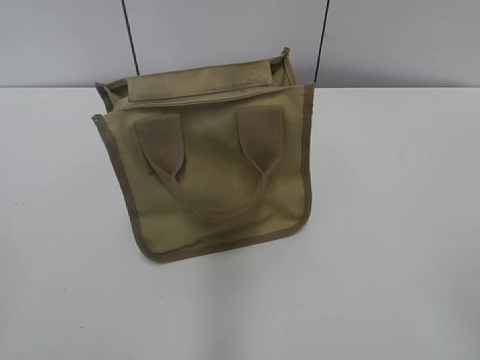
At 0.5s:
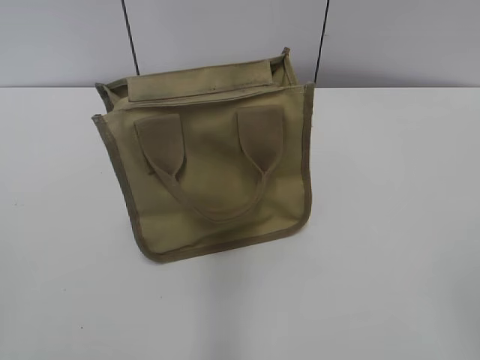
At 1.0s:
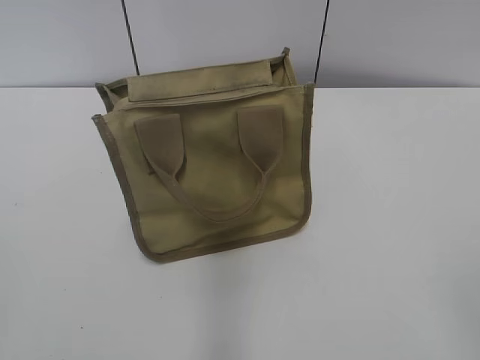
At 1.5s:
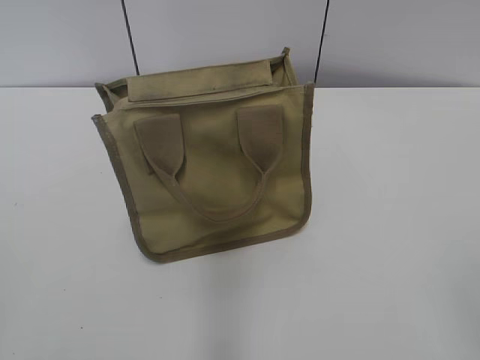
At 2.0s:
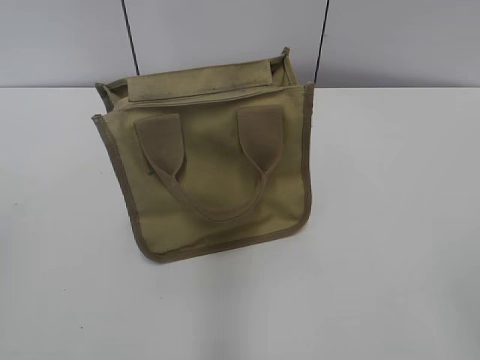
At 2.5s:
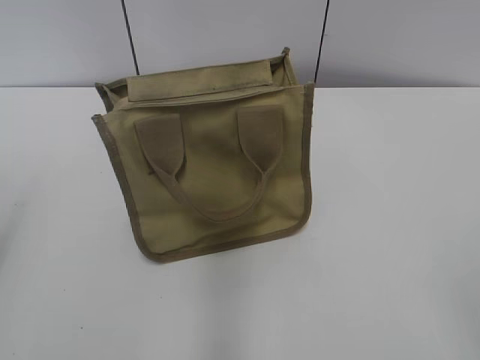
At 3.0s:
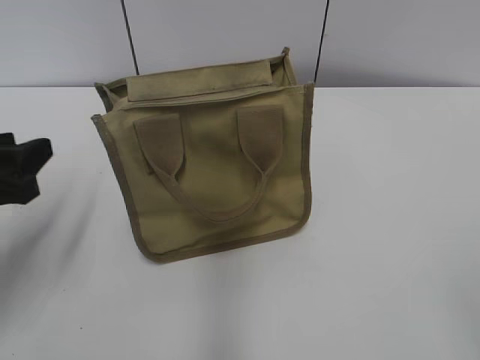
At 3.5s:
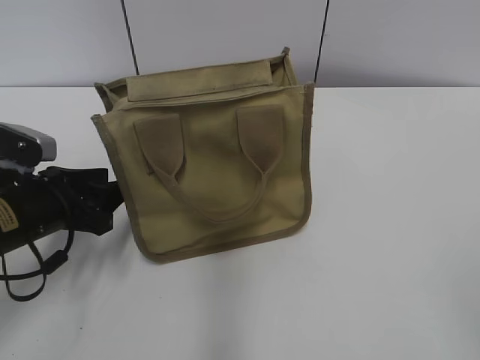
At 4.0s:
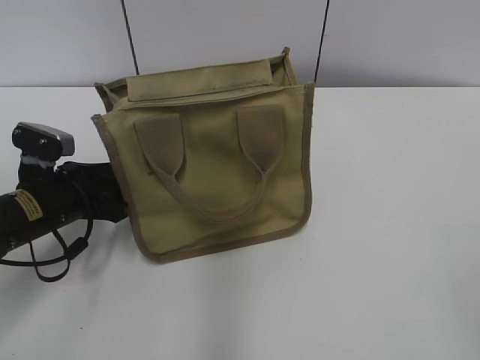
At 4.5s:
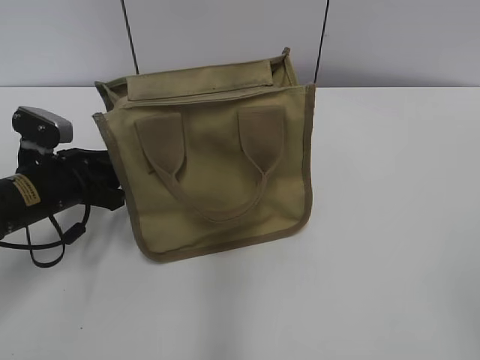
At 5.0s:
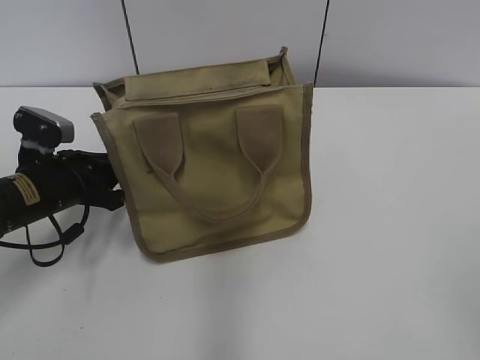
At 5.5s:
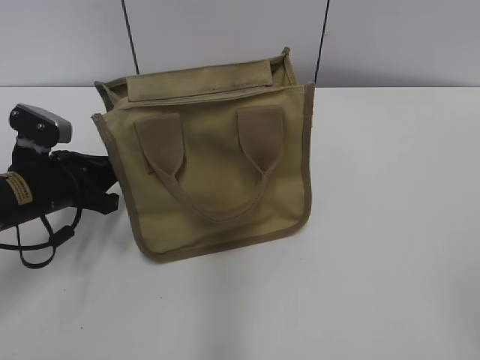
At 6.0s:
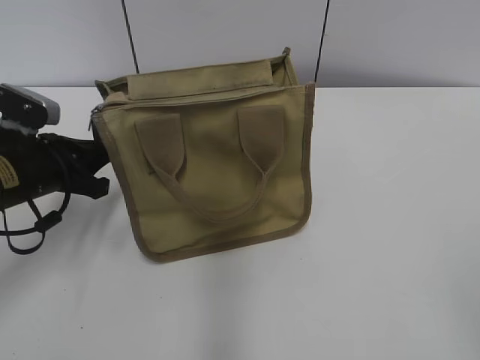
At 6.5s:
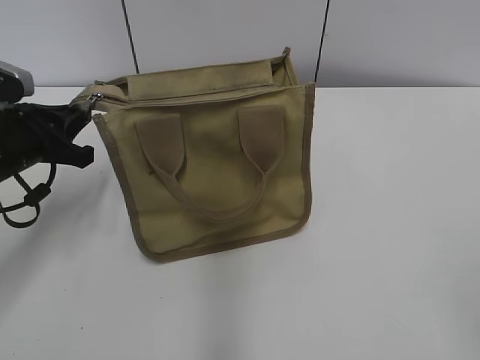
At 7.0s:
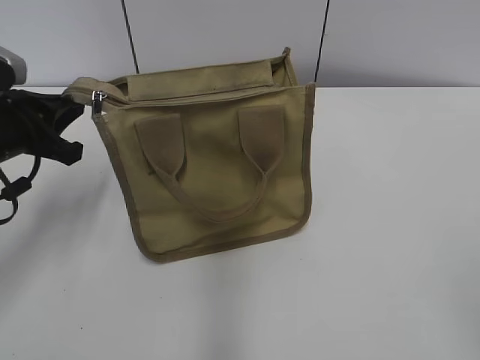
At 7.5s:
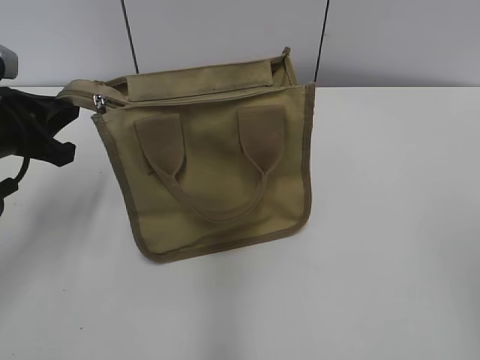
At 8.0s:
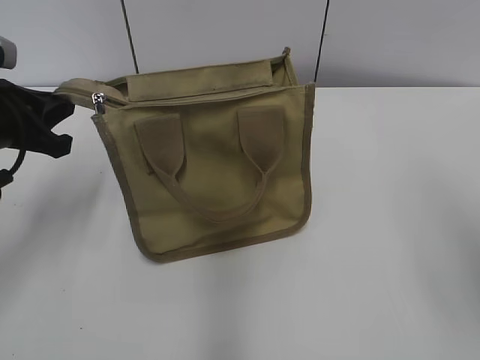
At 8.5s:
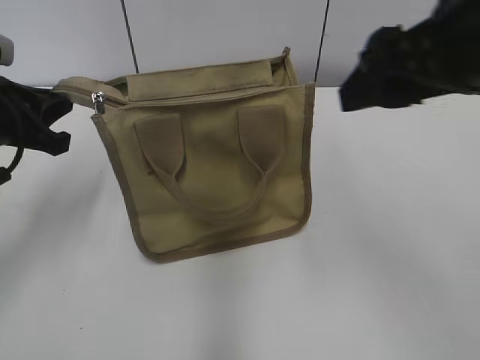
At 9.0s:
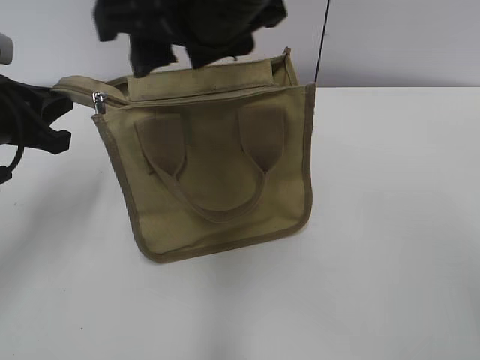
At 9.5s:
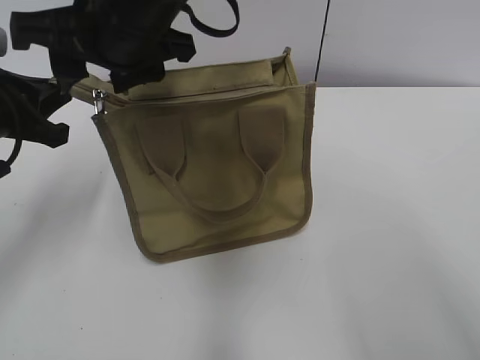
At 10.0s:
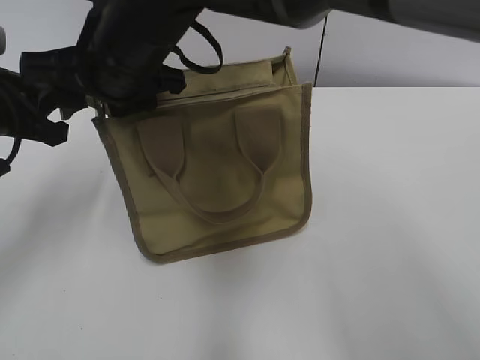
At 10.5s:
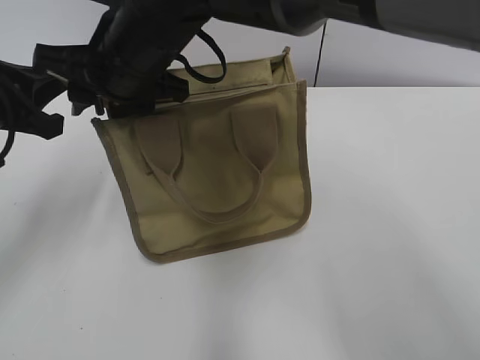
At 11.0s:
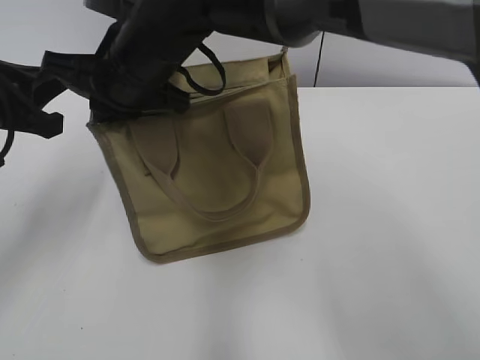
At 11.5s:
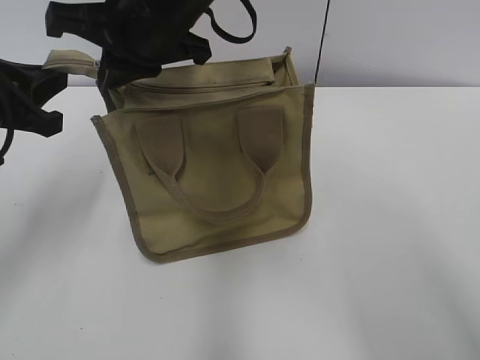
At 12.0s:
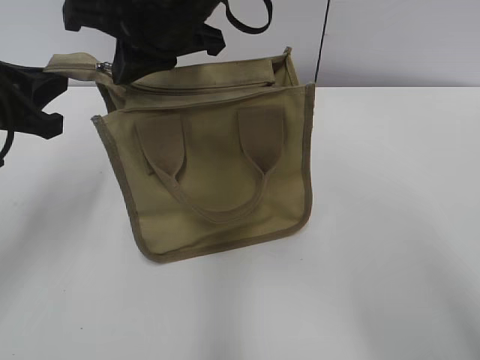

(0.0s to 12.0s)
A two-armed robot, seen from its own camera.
2.0s - 4.0s: The left gripper moves forward and downward, approximately 35 cm.
4.0s - 6.0s: The left gripper closes.
6.0s - 8.0s: The left gripper moves upward, roughly 10 cm.
8.0s - 10.0s: The right gripper is displaced to the left and forward by some 40 cm.
10.0s - 12.0s: The right gripper shifts by some 5 cm, and closes up.

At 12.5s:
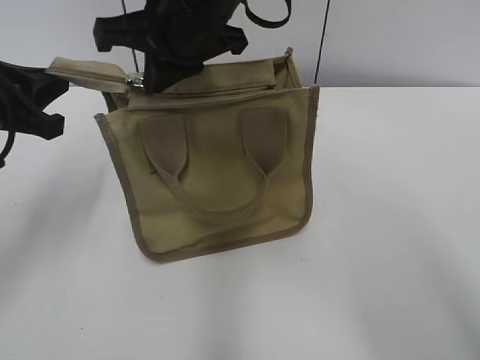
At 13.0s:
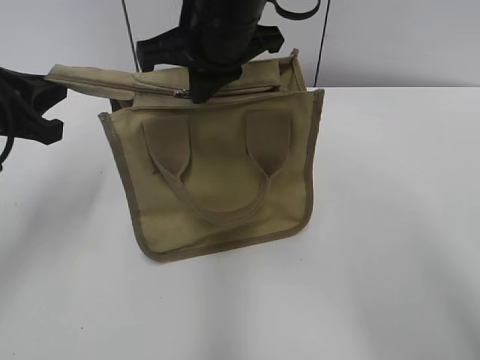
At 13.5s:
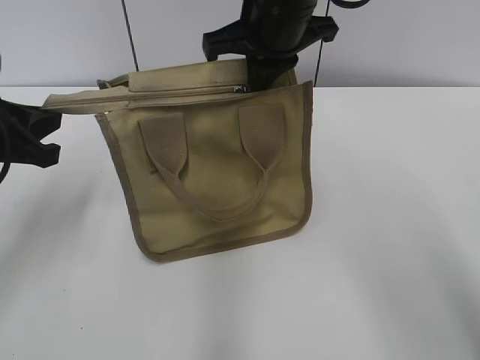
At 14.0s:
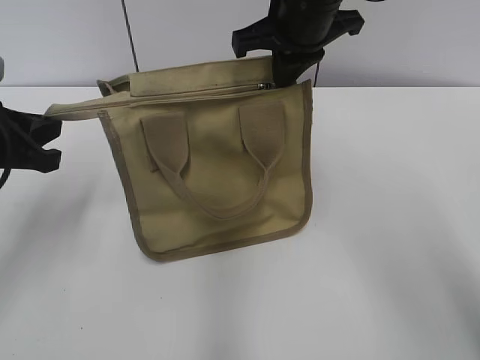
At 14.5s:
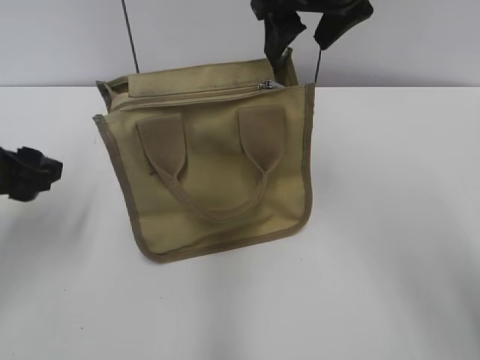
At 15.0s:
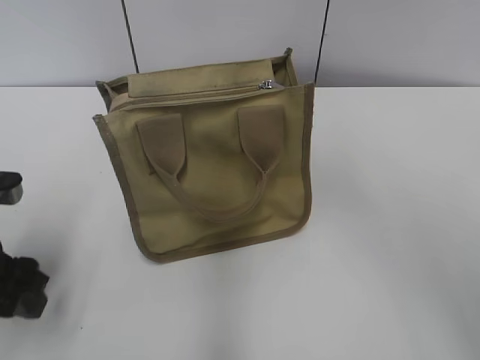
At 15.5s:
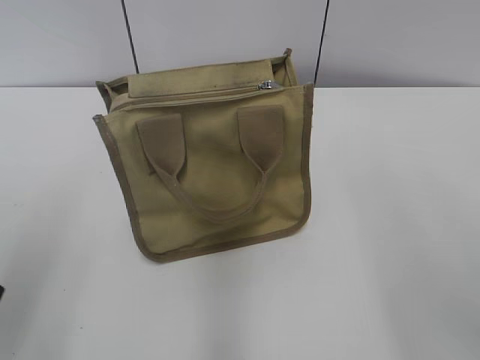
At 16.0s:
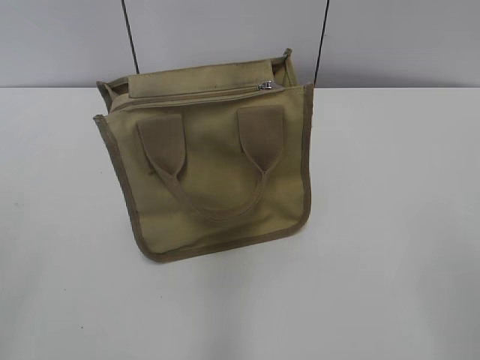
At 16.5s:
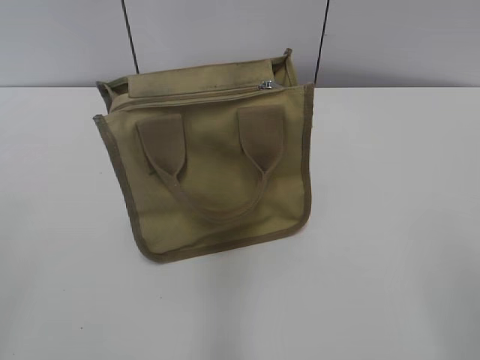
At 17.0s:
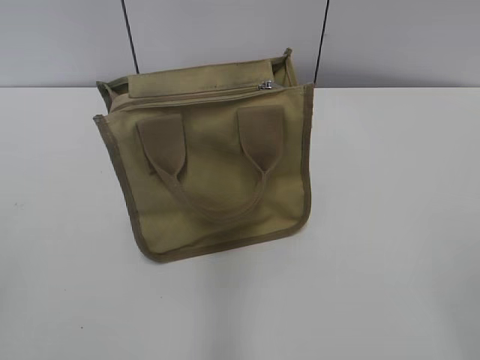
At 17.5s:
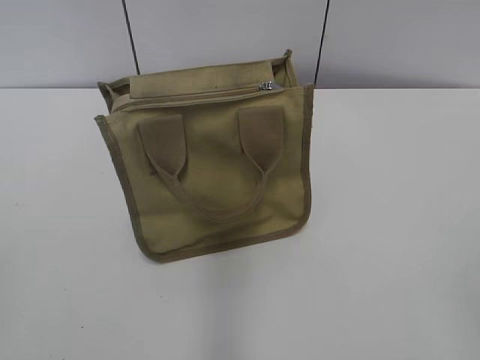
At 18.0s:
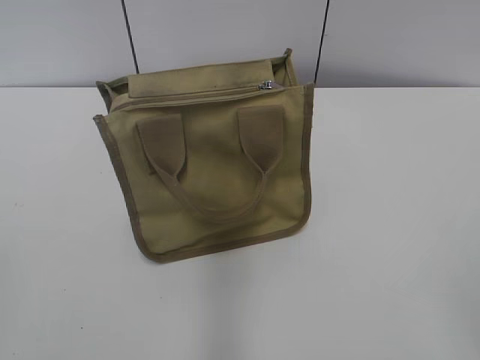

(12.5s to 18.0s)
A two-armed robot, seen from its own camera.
12.5s - 14.5s: The left gripper opens up. Meanwhile the right gripper moves to the right, roughly 10 cm, and opens.
14.5s - 16.0s: The left gripper shifts roughly 25 cm backward and upward. Meanwhile the right gripper shifts roughly 40 cm backward and to the right.

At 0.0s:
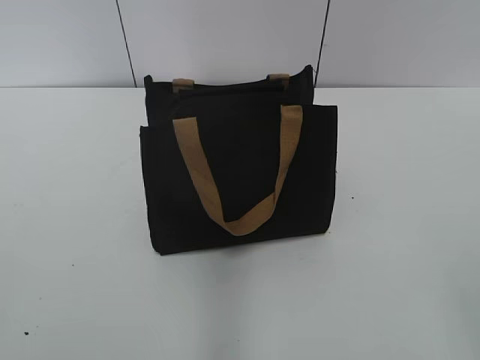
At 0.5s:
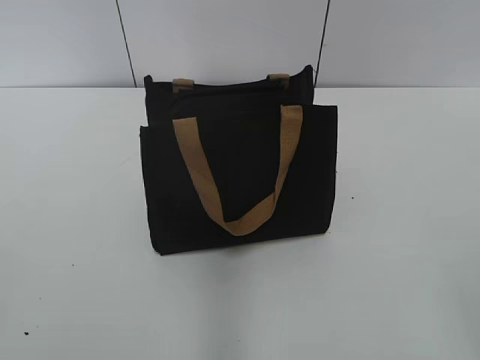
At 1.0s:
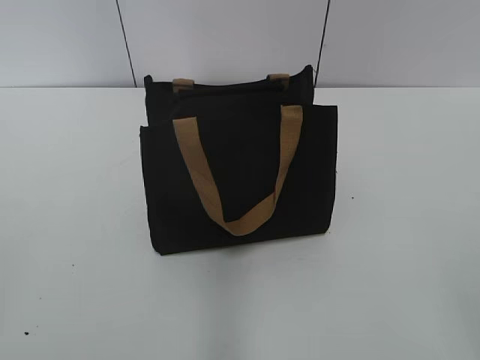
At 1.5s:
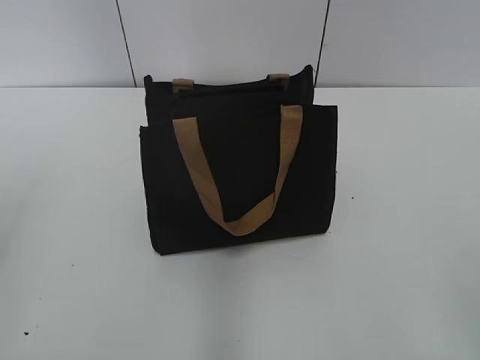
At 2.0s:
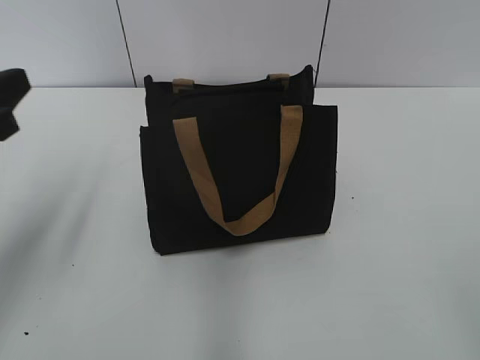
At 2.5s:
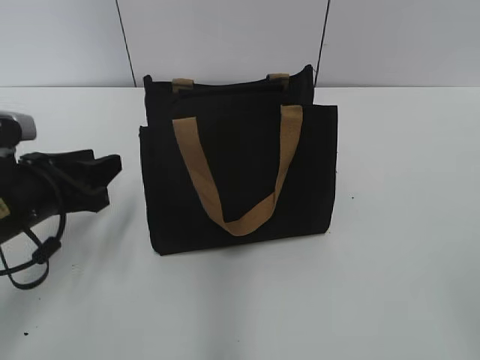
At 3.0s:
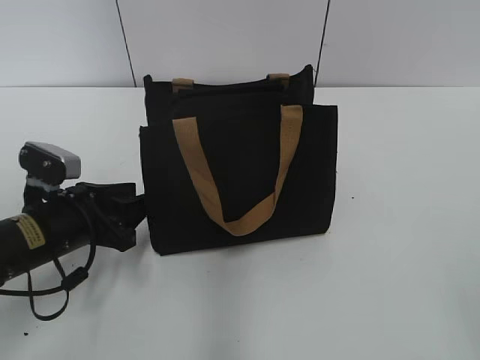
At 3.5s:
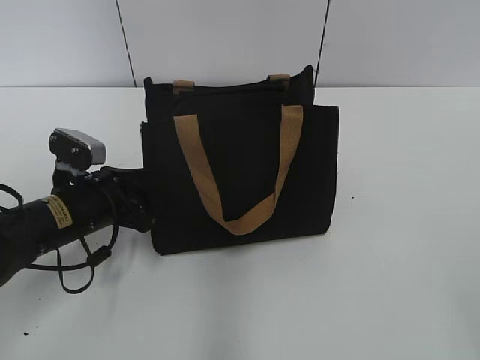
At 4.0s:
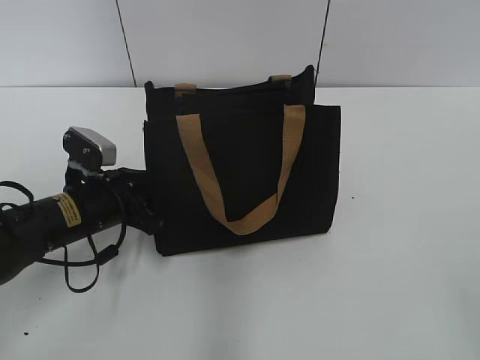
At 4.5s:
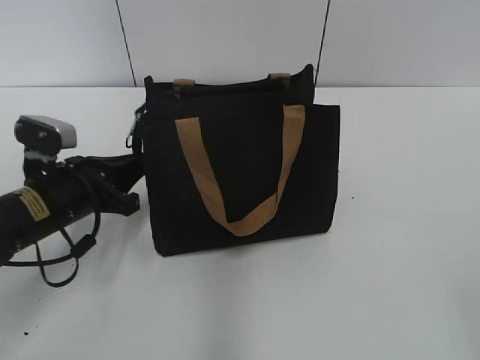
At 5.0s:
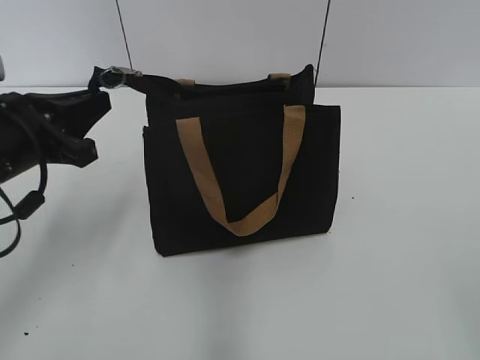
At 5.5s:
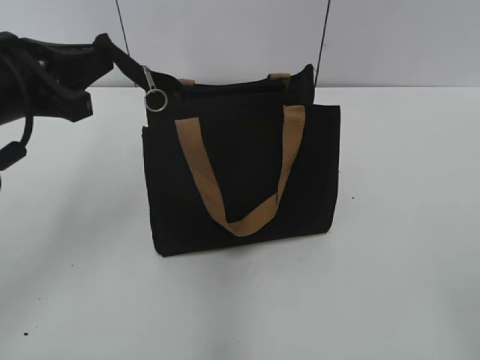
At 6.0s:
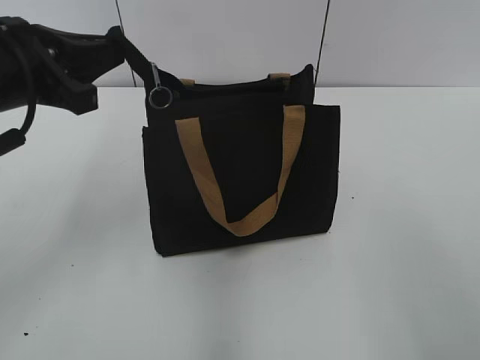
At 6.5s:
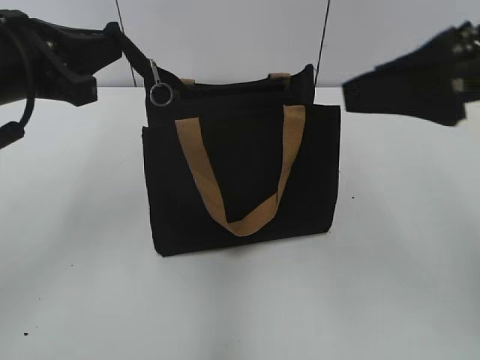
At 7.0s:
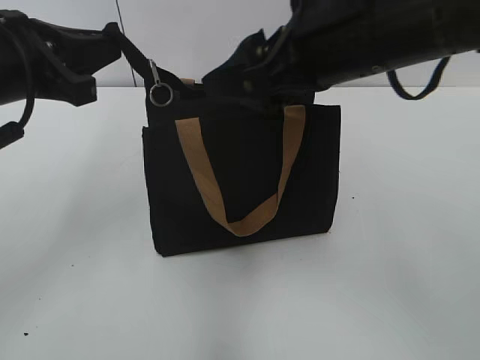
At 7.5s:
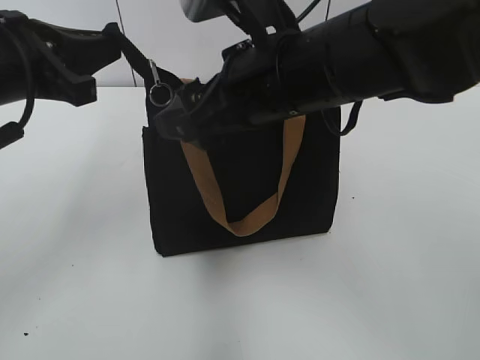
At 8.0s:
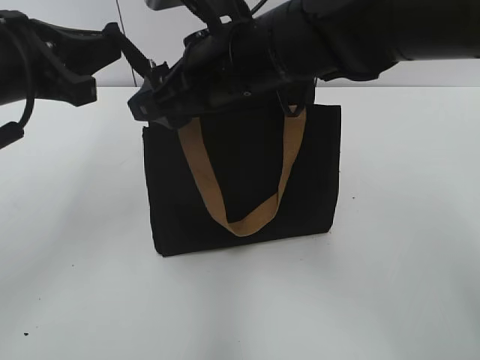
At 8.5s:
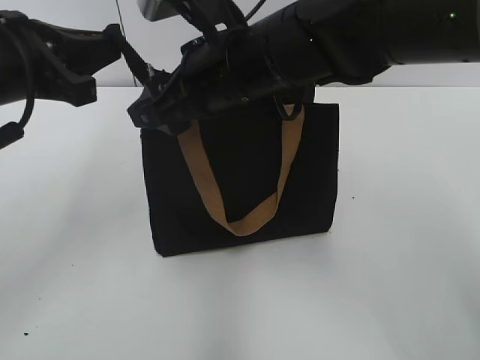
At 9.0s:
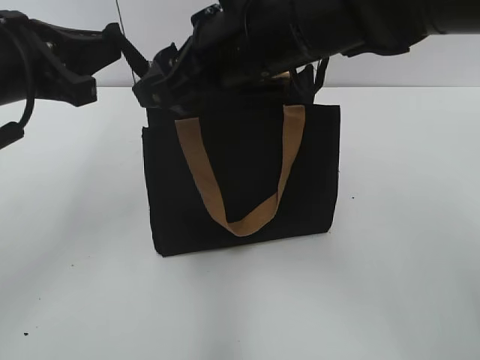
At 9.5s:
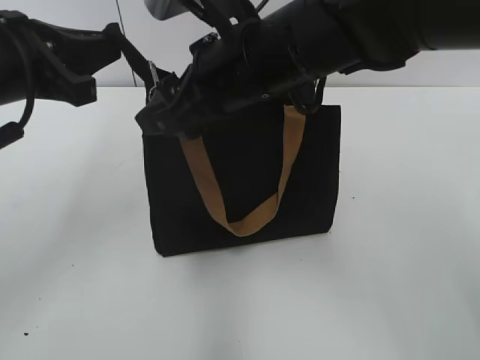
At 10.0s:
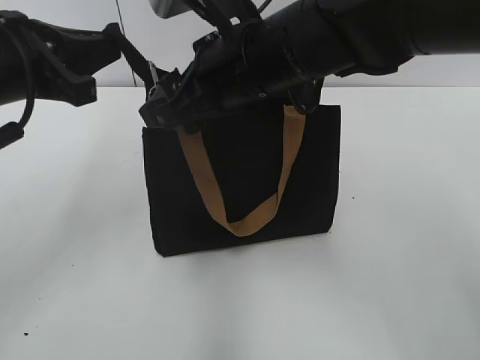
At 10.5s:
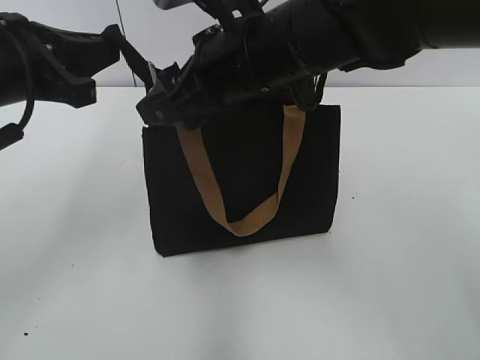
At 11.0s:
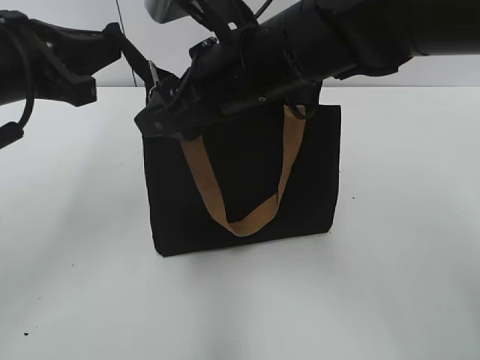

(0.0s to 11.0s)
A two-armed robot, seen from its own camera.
2.0s - 3.5s: The left gripper shifts about 20 cm downward, forward and to the right.
3.5s - 5.5s: The left gripper travels upward by about 15 cm, and closes its fingers.
5.5s - 7.5s: The right gripper goes approximately 35 cm forward and to the left.
7.5s - 11.0s: The grippers make only small movements.
